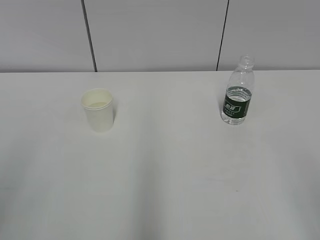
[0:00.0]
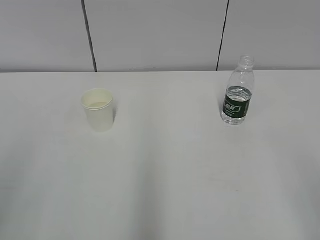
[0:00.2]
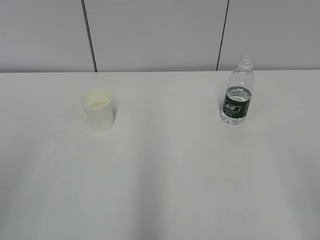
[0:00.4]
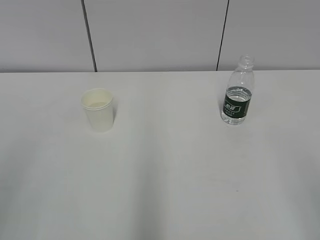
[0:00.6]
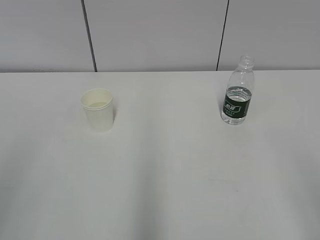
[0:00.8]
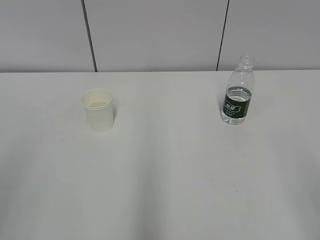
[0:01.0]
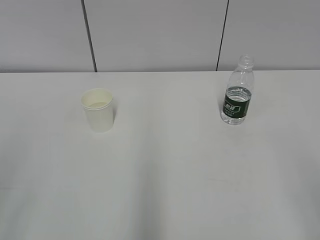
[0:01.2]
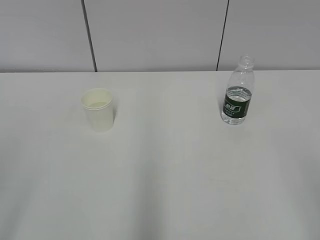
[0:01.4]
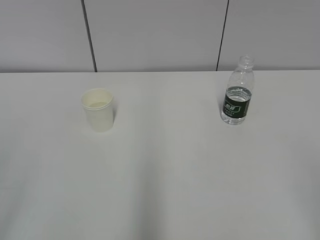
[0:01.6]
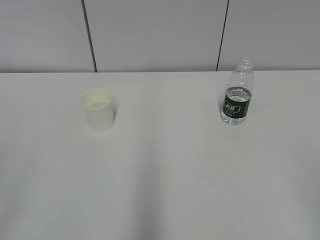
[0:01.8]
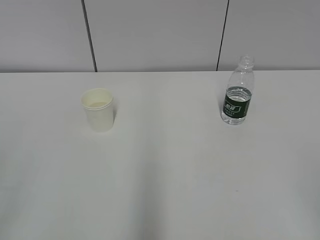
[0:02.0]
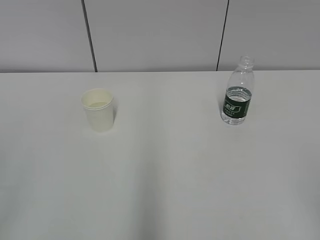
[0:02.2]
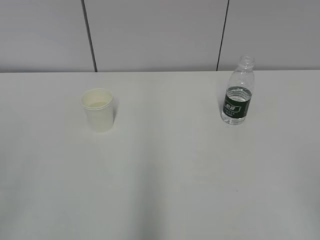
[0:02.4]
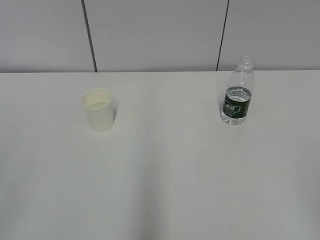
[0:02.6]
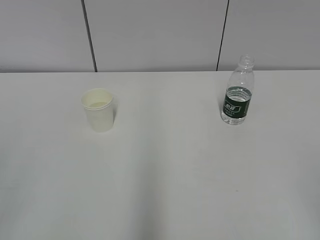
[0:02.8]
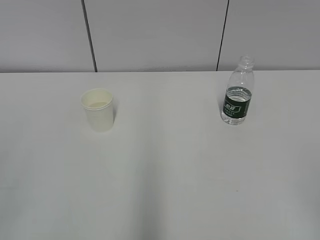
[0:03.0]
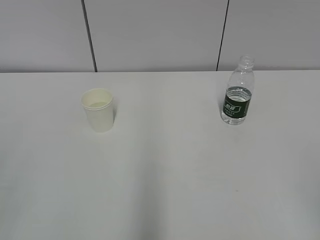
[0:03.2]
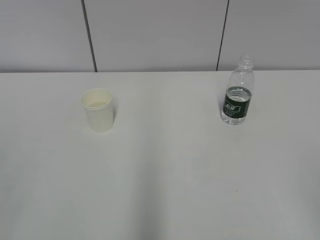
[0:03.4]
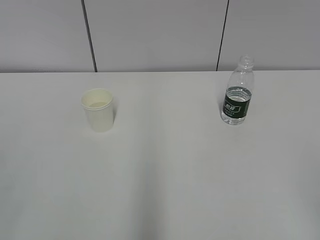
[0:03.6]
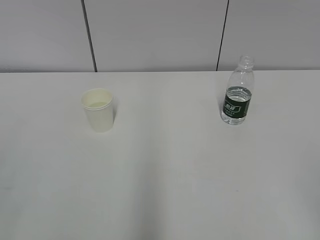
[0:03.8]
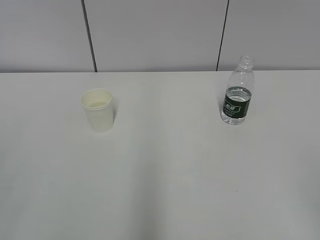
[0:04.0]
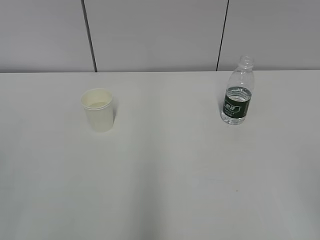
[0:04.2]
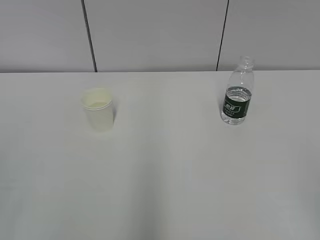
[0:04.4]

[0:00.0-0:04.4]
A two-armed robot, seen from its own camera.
0:03.0 to 0:04.4: Neither gripper changes place.

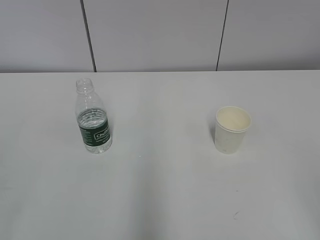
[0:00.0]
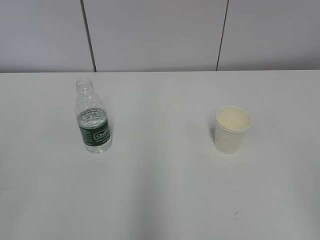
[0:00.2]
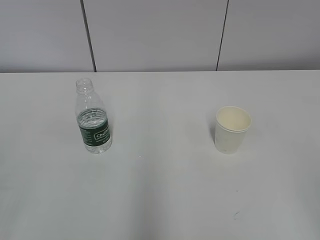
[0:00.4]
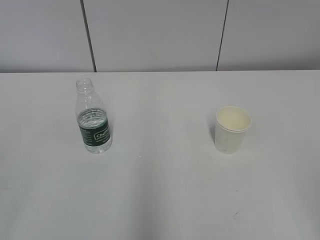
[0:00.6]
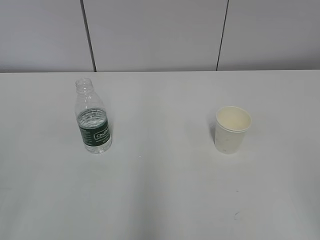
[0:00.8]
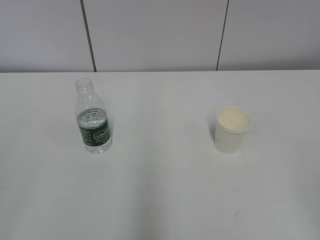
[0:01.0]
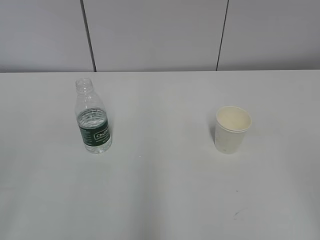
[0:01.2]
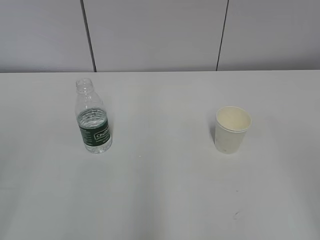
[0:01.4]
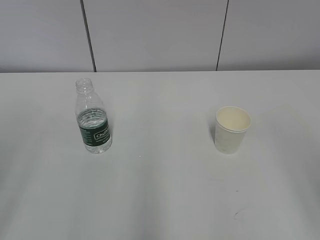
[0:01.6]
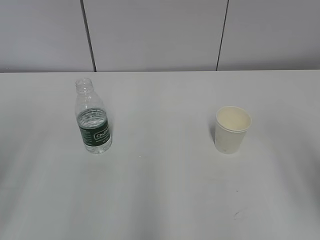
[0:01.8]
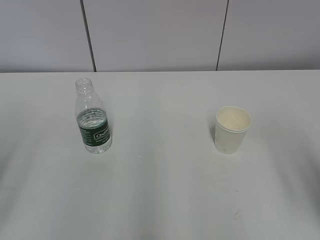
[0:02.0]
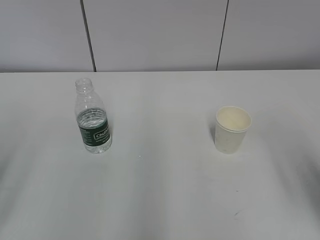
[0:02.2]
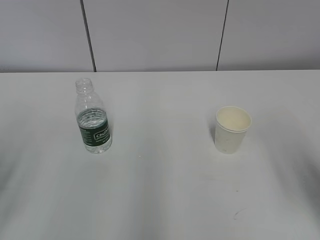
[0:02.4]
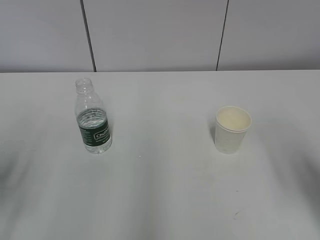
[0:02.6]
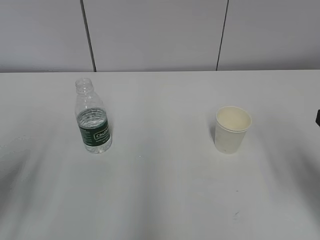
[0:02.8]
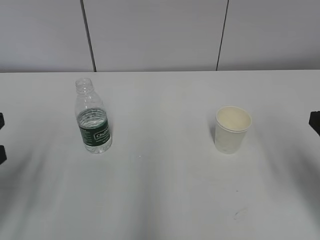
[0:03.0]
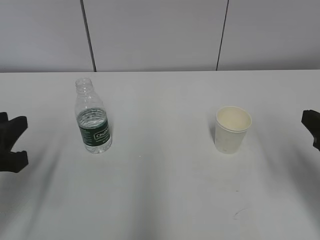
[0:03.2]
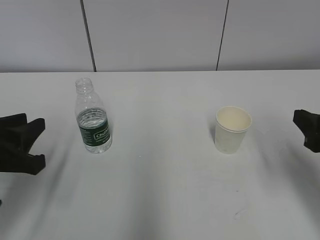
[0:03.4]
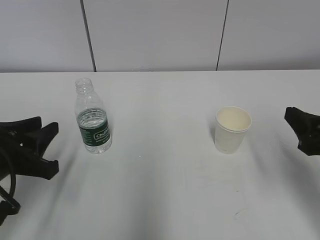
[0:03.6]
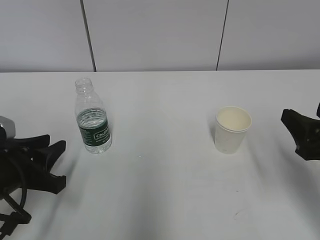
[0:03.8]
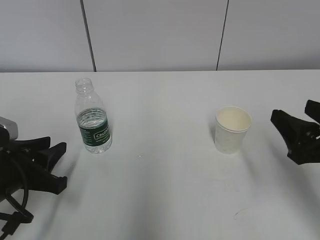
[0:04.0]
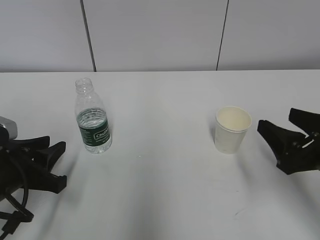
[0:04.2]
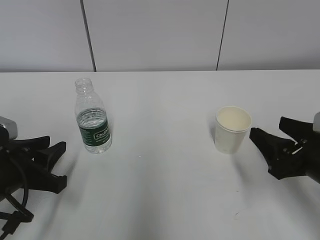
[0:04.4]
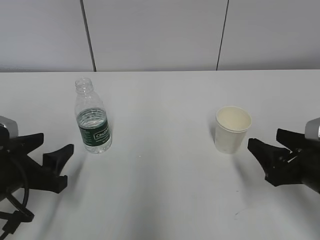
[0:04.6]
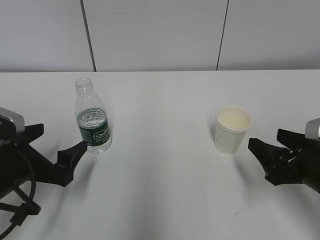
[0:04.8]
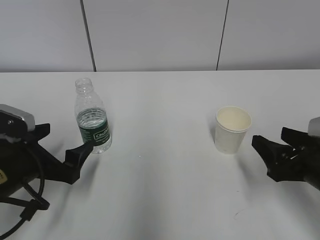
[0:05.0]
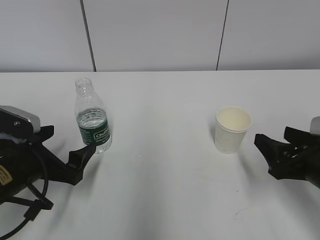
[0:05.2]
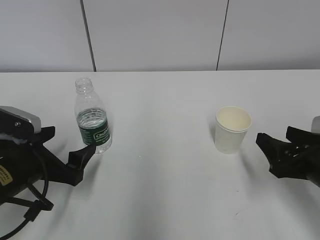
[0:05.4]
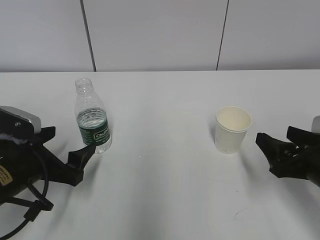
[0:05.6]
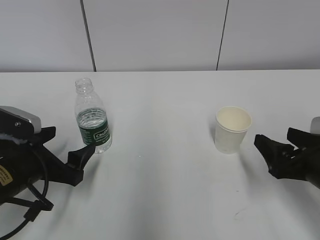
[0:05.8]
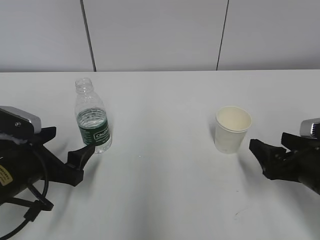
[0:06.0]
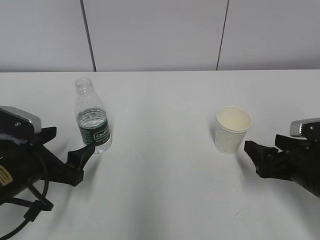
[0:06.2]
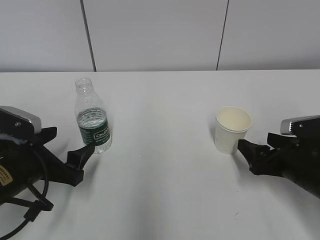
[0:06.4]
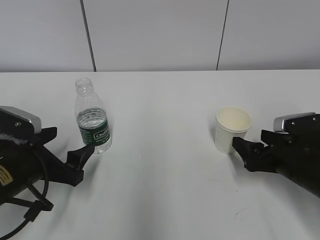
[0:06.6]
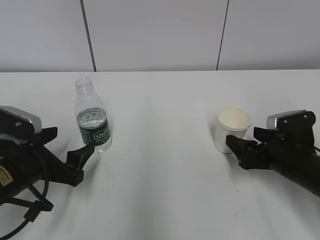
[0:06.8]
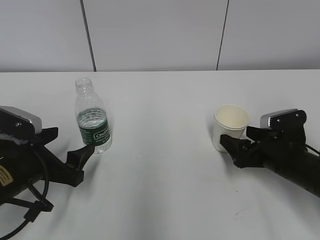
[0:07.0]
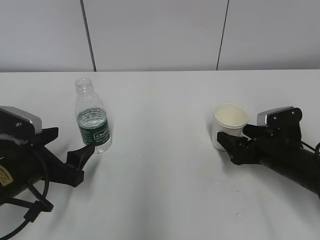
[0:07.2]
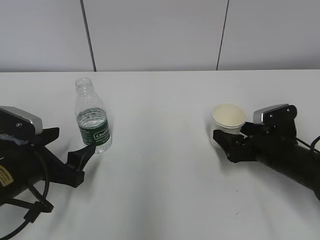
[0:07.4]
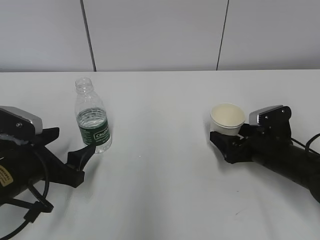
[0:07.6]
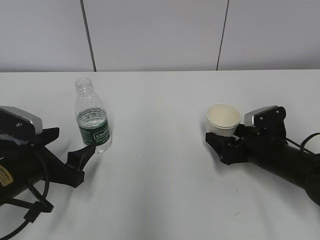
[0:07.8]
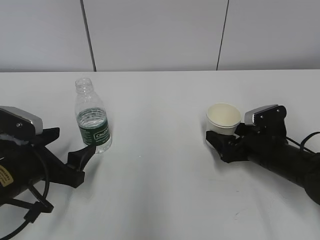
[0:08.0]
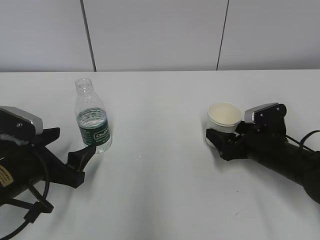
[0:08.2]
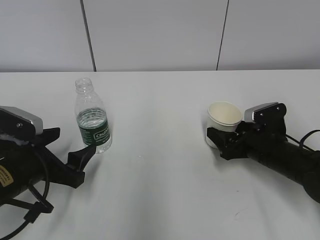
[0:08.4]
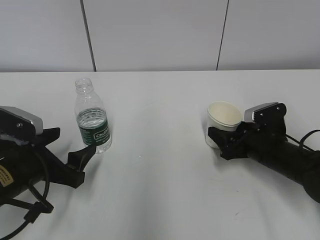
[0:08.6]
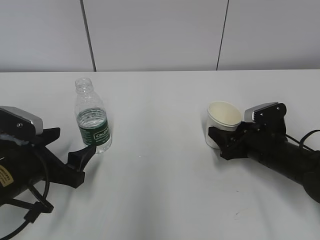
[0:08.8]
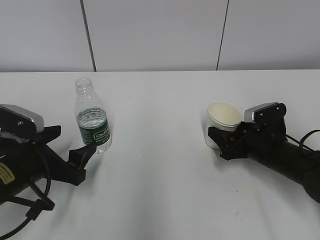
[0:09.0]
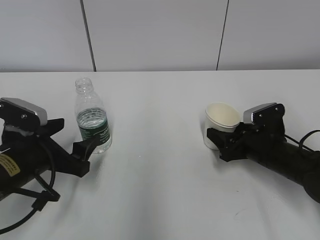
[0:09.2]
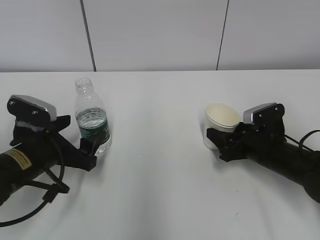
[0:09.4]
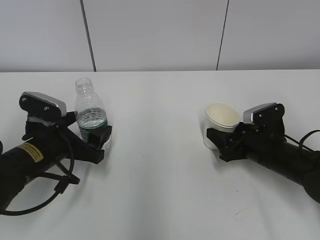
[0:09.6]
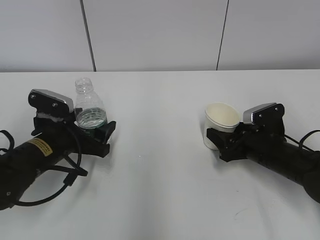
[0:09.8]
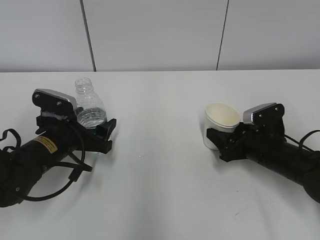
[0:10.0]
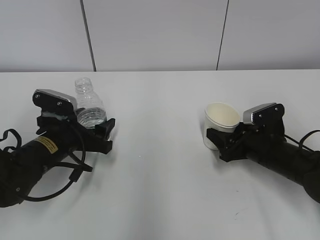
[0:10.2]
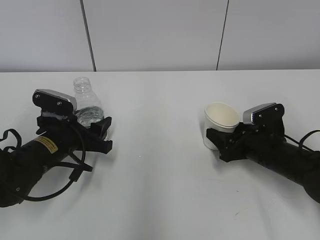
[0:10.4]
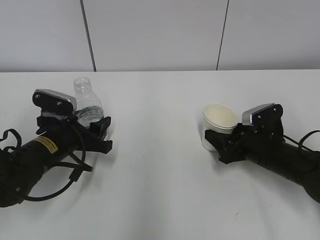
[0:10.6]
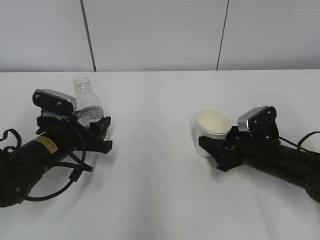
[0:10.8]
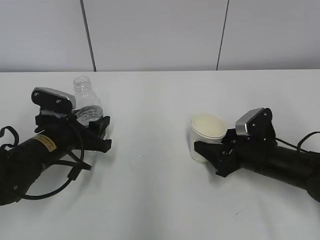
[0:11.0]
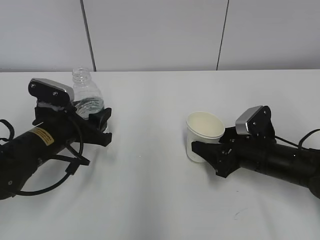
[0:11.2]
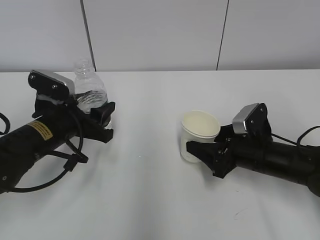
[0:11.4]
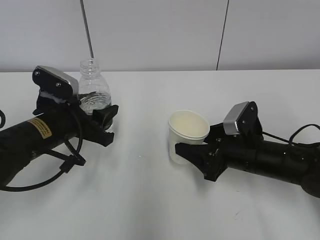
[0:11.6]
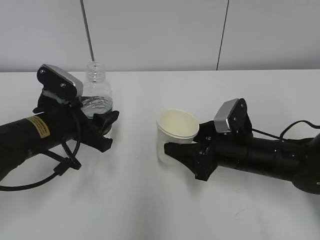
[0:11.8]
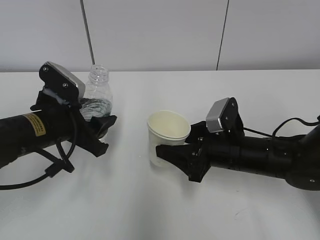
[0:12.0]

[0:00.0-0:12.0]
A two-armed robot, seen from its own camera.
Step, 0:00.0 to 0:09.0: Grab the water bottle with the left hand.
0:01.6 to 0:03.0: The right gripper goes roughly 15 cm forward and downward, while the left gripper is displaced downward and forward by approximately 15 cm.
0:03.0 to 0:04.4: Both grippers travel together downward, approximately 10 cm.
0:04.4 to 0:06.0: The left gripper opens its fingers. Meanwhile the right gripper opens.
0:06.0 to 0:07.6: The right gripper travels forward and downward by roughly 10 cm.
0:07.6 to 0:09.0: The right gripper closes up.
0:09.0 to 0:10.4: The left gripper goes some 10 cm forward, and closes its fingers.
0:10.4 to 0:12.0: The left gripper goes about 5 cm upward, while the right gripper shifts approximately 10 cm to the left.

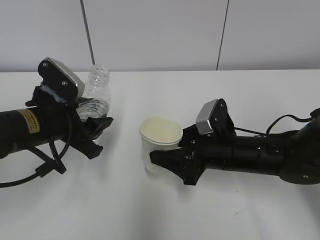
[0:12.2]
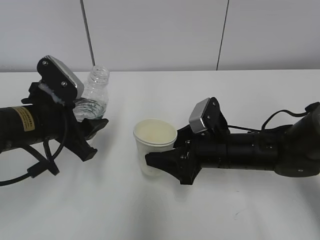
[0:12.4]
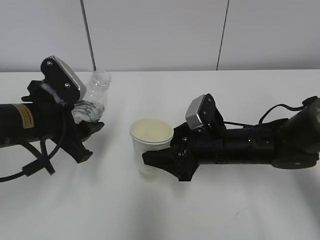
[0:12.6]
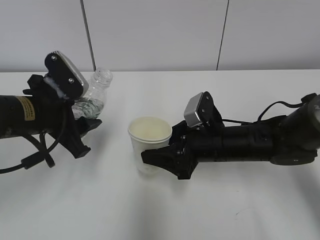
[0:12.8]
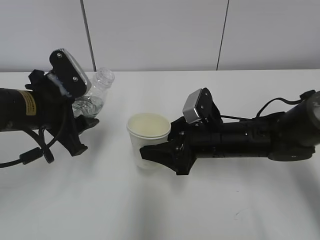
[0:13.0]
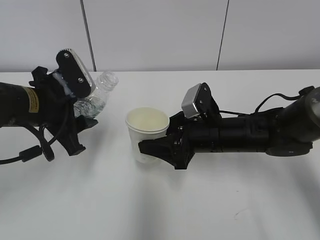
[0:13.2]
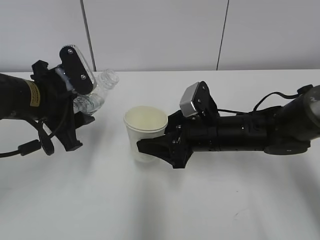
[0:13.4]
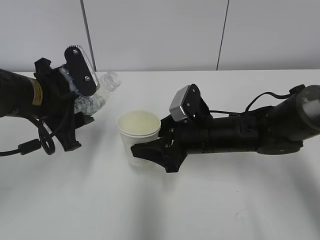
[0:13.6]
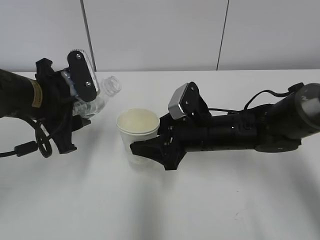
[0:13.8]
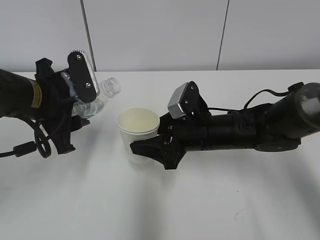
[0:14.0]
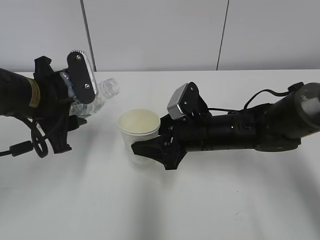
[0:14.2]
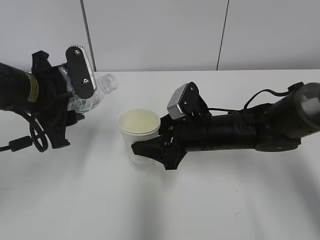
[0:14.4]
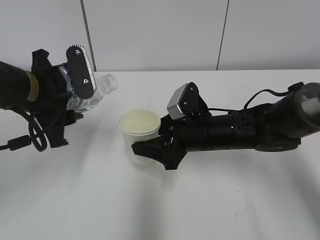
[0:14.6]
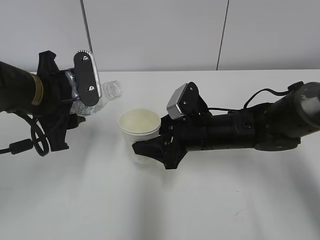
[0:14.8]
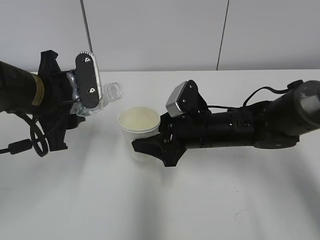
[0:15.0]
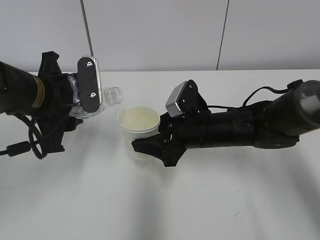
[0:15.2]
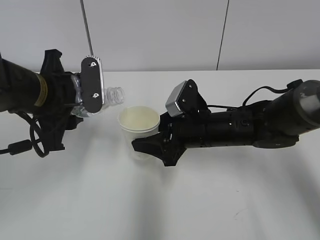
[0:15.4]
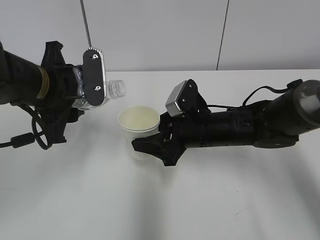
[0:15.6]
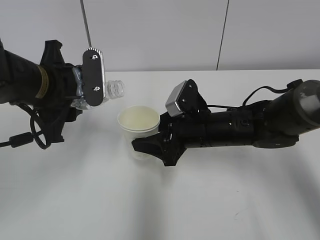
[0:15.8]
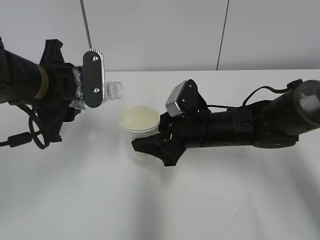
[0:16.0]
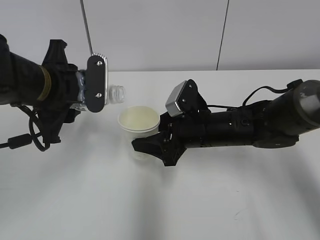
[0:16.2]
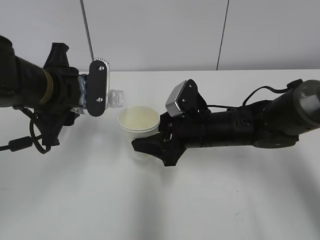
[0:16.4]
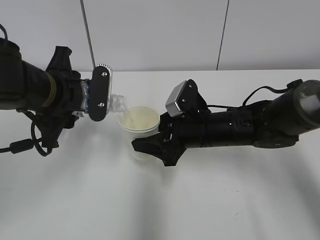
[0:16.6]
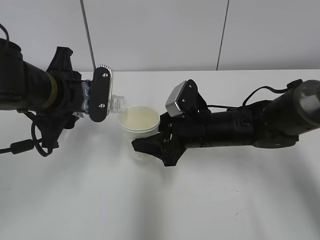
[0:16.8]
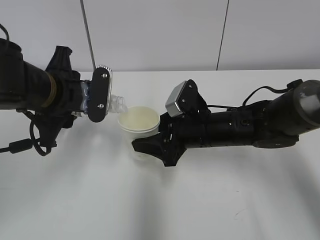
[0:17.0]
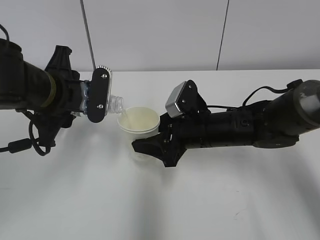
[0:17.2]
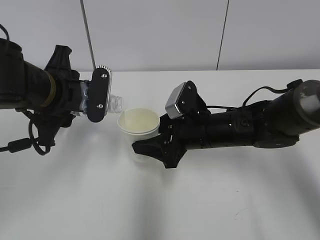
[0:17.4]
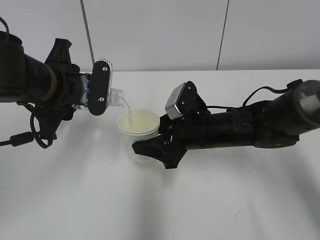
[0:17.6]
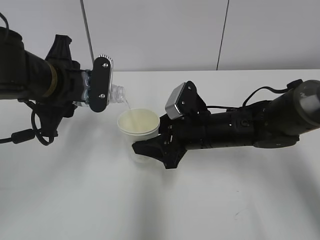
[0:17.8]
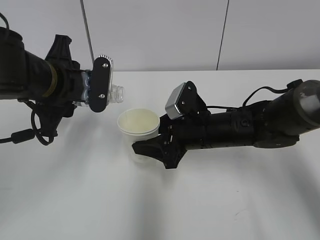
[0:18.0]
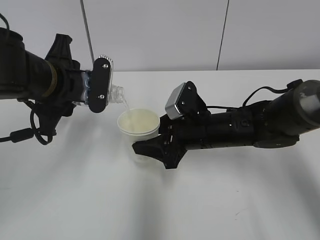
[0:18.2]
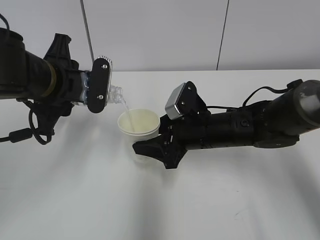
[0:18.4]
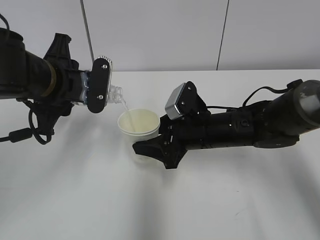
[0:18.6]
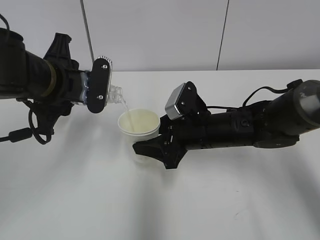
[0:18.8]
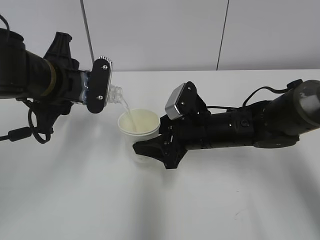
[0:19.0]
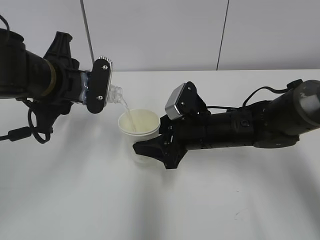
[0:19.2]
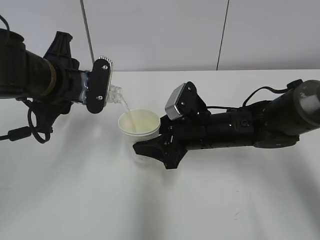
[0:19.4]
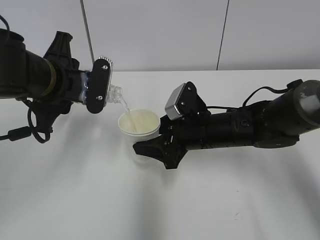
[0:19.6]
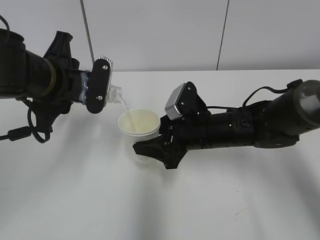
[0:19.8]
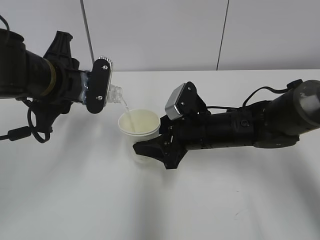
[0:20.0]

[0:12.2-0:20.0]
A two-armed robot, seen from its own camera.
0:12.2 to 0:13.8: The right gripper moves approximately 5 cm.
0:13.8 to 0:15.4: The grippers move only a little.
0:15.4 to 0:18.4: The grippers make only small movements.
0:18.4 to 0:20.0: Both grippers stay about where they are.
